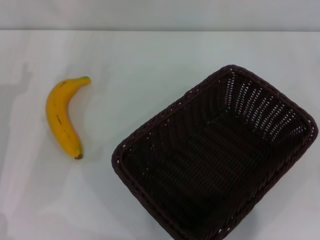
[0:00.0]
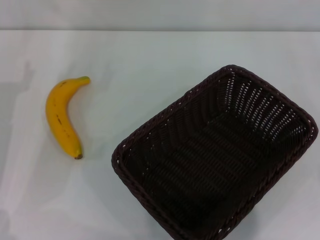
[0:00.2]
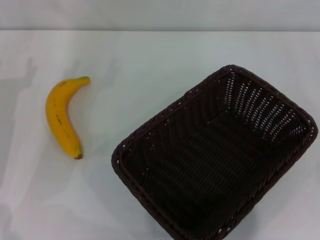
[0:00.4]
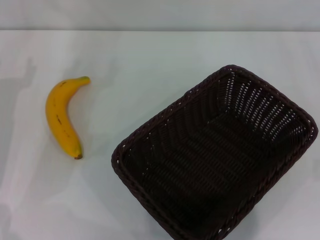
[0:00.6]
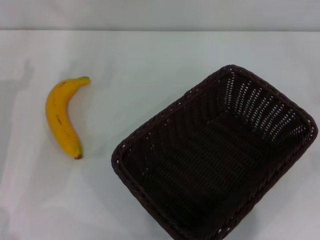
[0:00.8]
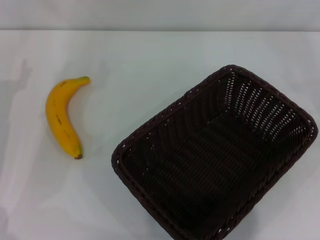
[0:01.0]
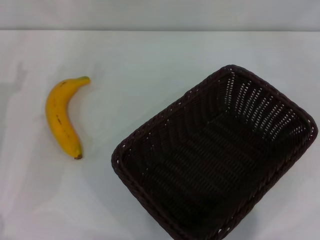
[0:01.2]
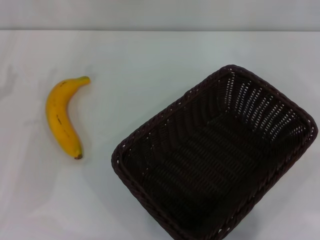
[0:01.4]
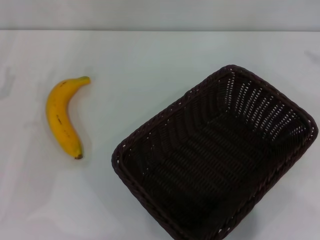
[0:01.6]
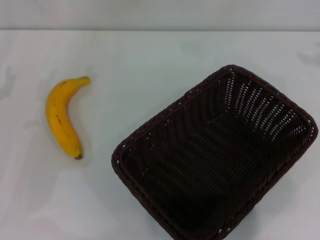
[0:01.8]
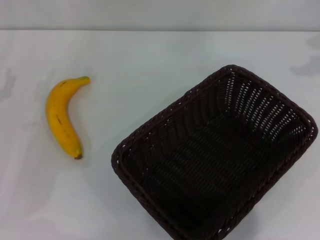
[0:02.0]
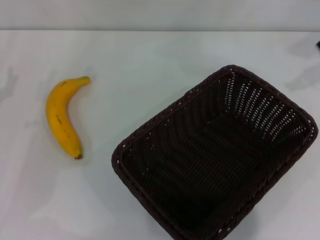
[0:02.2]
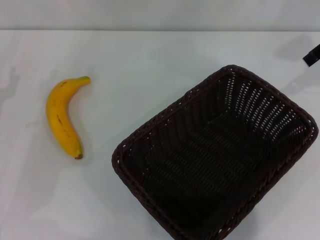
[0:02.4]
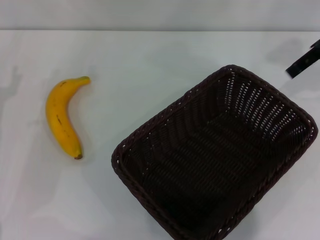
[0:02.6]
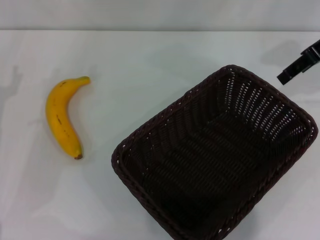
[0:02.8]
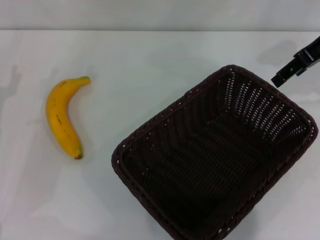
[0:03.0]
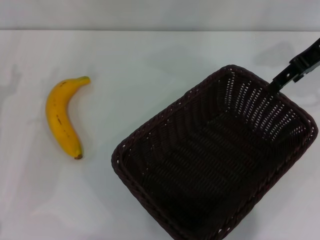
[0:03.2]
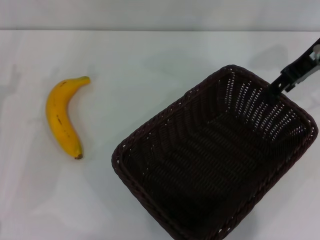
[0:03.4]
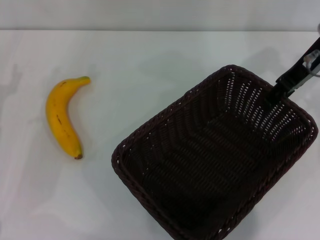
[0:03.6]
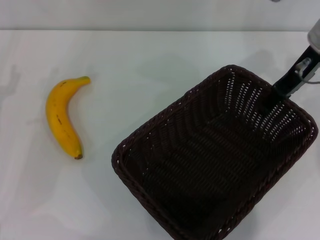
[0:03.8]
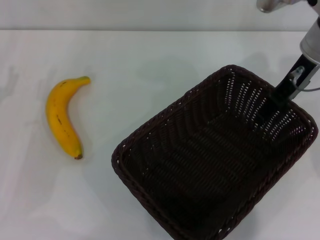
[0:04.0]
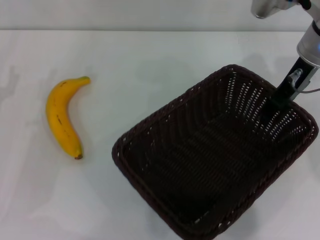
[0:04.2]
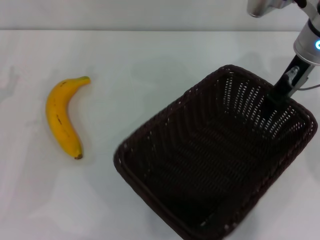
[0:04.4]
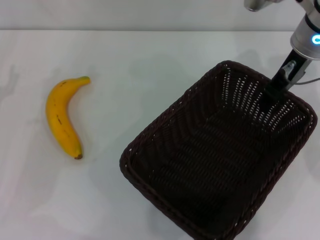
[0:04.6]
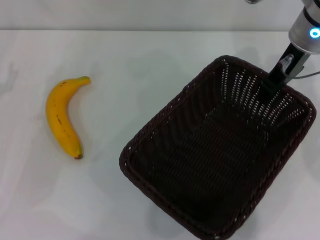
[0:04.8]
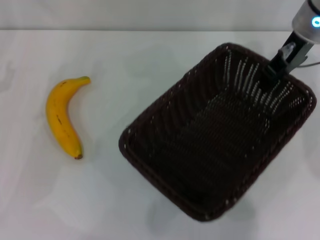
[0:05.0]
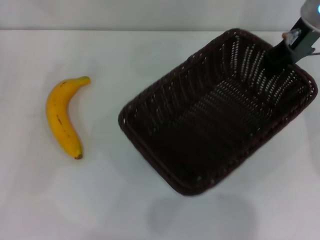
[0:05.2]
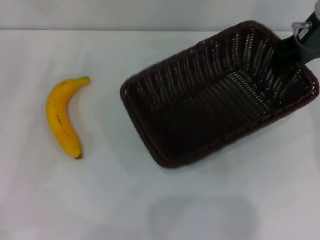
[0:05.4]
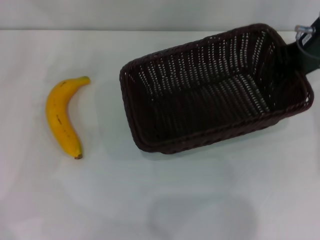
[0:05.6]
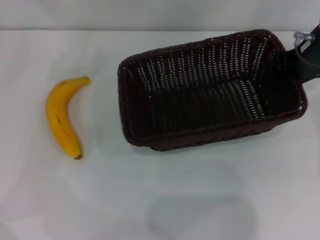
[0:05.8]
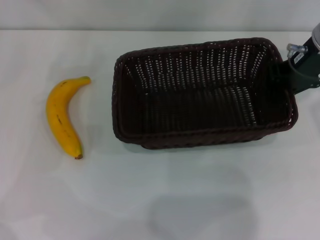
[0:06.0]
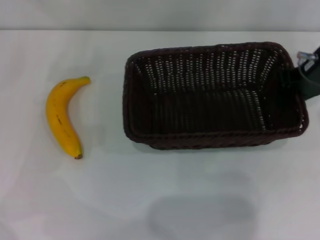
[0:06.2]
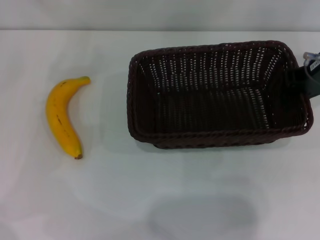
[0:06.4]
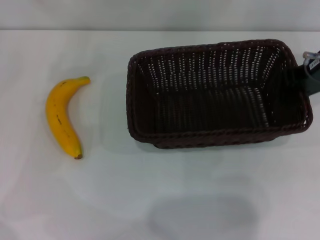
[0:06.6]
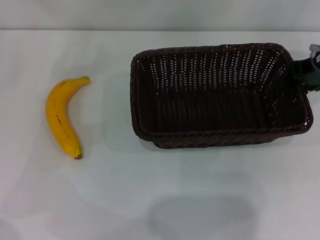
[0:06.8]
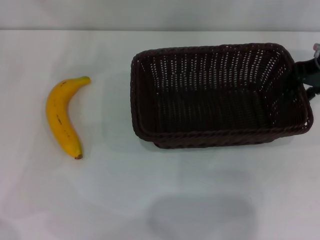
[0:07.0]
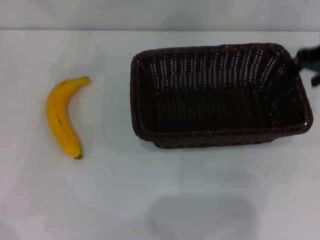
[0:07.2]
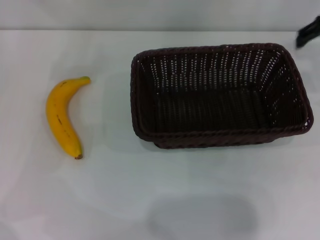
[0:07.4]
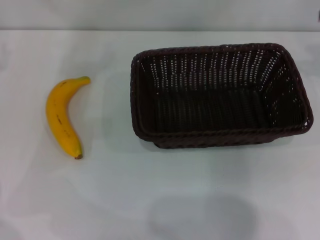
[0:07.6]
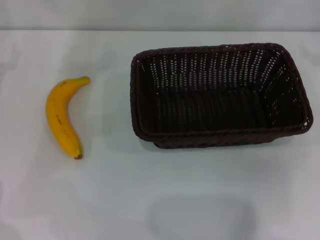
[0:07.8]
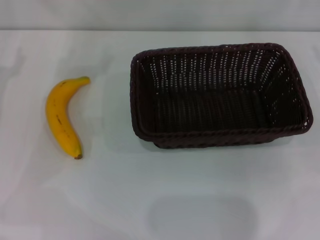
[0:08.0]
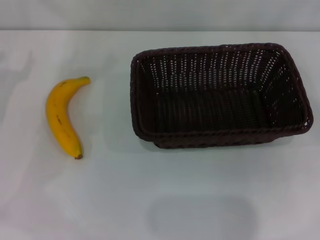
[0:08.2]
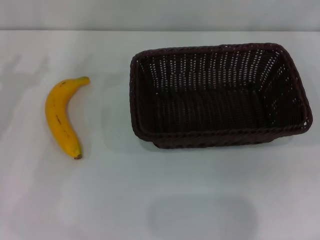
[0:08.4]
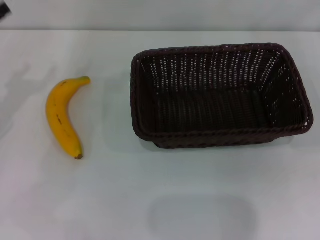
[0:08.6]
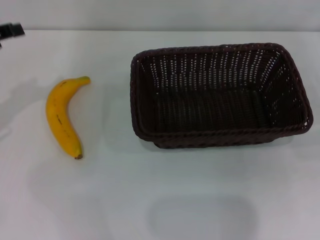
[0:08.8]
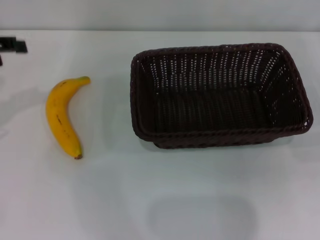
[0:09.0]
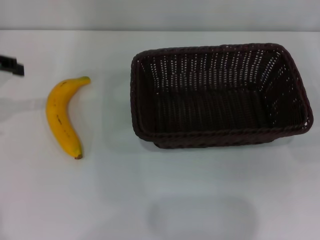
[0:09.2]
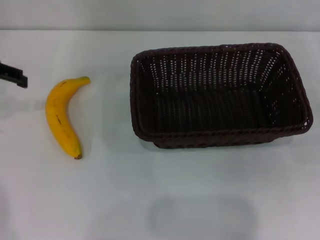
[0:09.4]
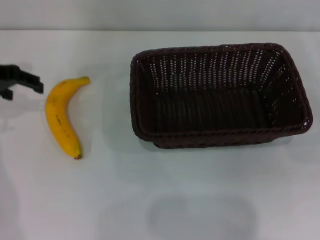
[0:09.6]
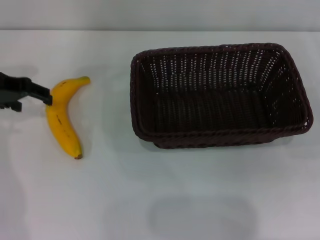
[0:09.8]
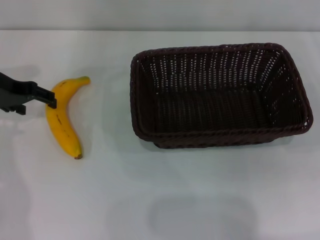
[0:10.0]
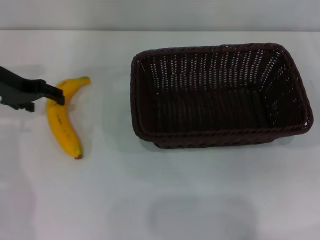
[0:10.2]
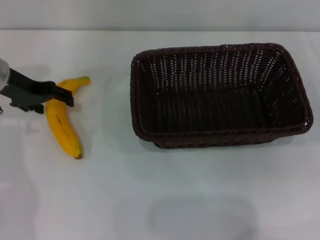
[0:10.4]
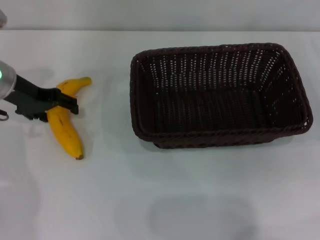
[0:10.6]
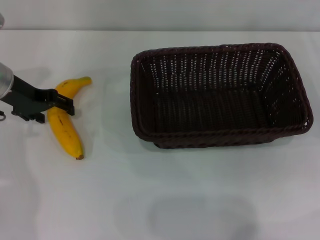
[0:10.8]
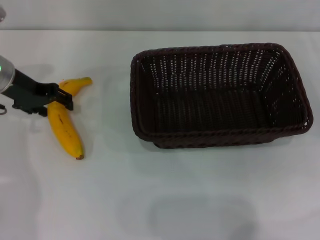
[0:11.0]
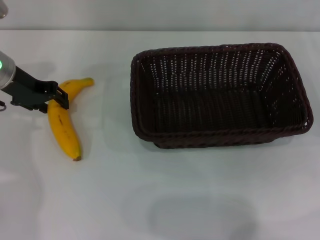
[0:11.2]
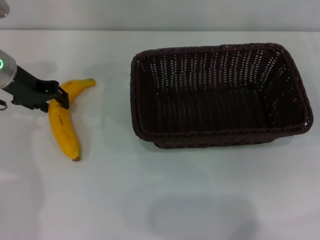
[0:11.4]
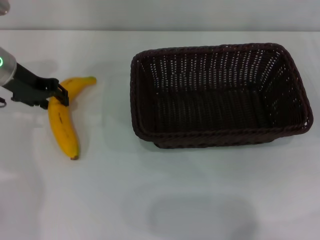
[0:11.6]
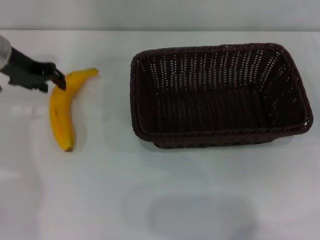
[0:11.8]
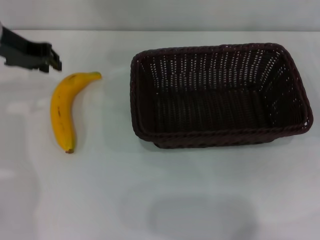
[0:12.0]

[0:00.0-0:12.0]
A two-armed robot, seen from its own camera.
Step, 0:00.0 to 0:05.0: Pick up the dark basket with the right gripper.
Step, 0:05.4 to 0:08.2: Place the dark basket in the center of view with the right gripper.
0:01.6 to 0:03.0: The right gripper goes some 15 cm to the left.
0:03.0 to 0:04.4: The right gripper shifts approximately 10 cm to the left and downward.
0:04.4 to 0:06.0: The right gripper closes. Meanwhile the left gripper is displaced upward by approximately 5 cm.
0:06.0 to 0:07.6: The right gripper heads to the right and upward, covering roughly 10 cm, and opens its fingers.
0:09.0 to 0:10.4: The left gripper goes some 10 cm downward, to the right and forward.
0:10.4 to 0:12.0: The left gripper shifts approximately 5 cm upward, and closes its fingers.

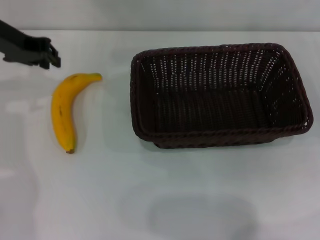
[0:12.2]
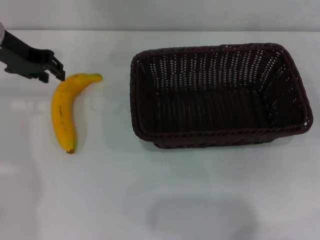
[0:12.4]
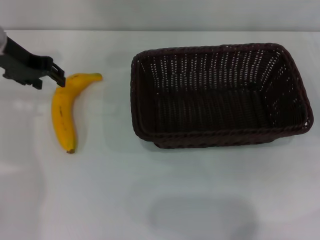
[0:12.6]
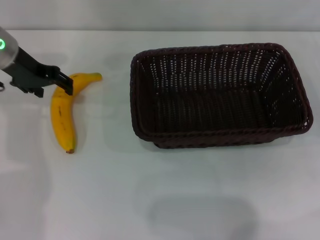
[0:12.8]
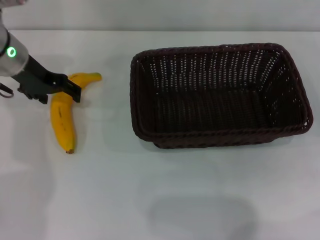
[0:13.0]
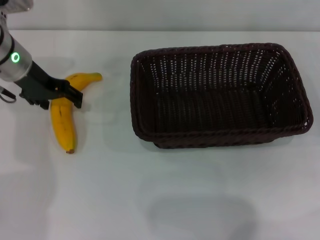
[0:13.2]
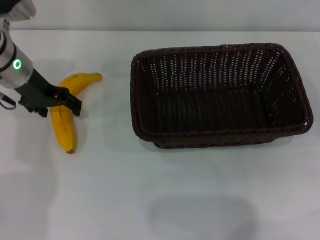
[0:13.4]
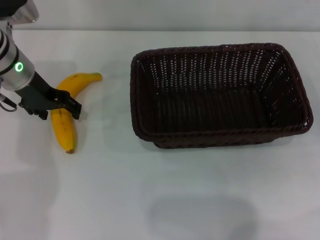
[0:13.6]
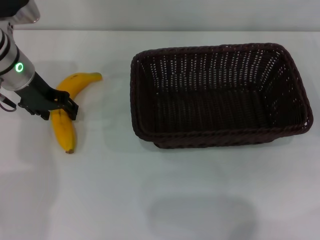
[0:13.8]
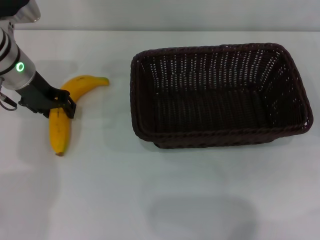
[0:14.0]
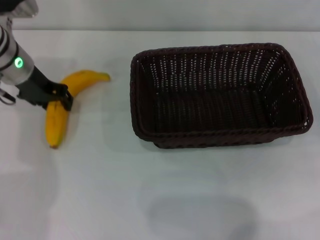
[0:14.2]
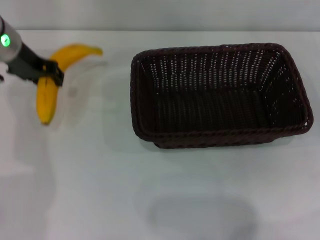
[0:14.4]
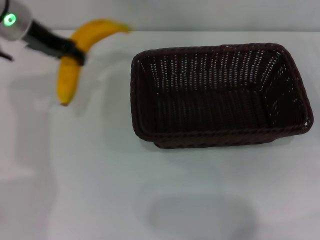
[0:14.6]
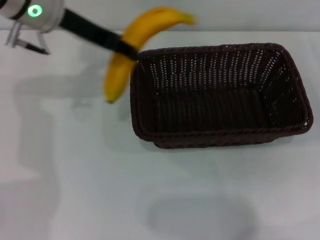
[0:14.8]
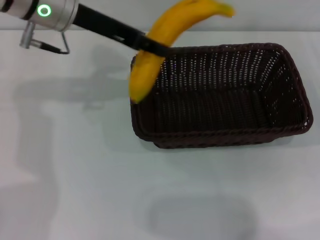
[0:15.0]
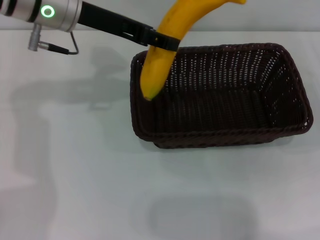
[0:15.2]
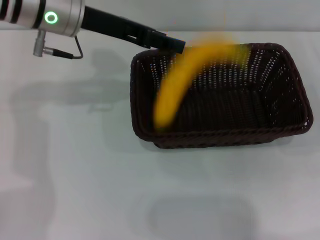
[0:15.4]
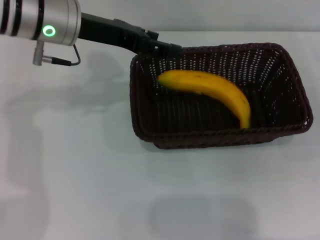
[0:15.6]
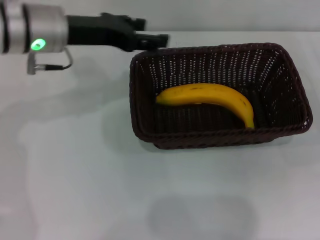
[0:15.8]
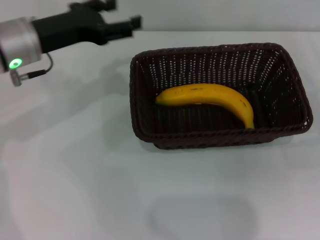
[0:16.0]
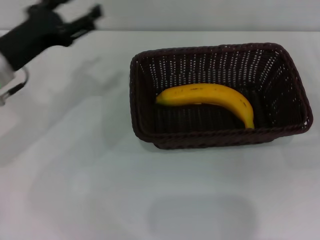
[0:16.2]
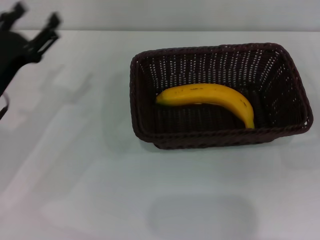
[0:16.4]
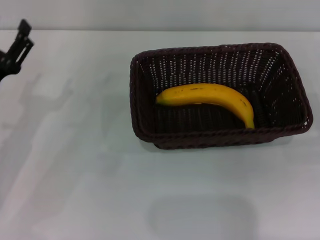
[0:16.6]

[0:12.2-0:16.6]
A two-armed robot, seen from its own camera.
Step, 0:12.2 to 0:14.4: Pick up the banana with the left gripper.
Step, 0:14.6 to 0:15.6: Place the banana into the dark basket with the left gripper.
0:12.2 to 0:13.6: The left gripper goes some 5 cm downward, and opens its fingers.
0:13.6 to 0:15.2: The left gripper moves upward and to the right, some 10 cm, and closes up.
0:15.2 to 0:16.6: The left gripper heads downward, to the left and backward, covering approximately 25 cm, and opens.

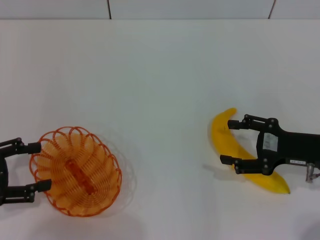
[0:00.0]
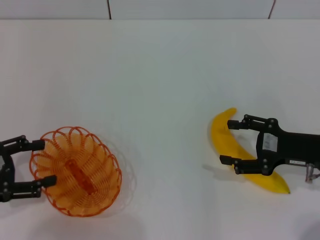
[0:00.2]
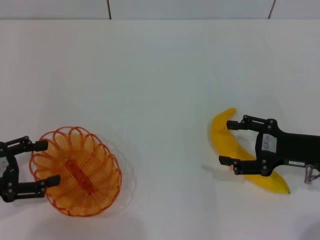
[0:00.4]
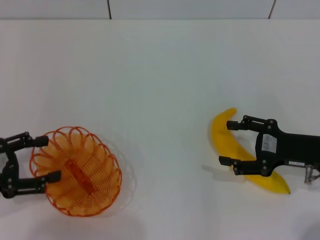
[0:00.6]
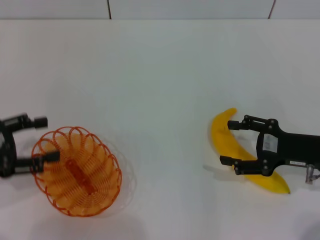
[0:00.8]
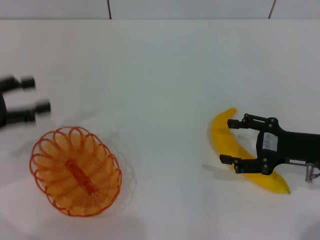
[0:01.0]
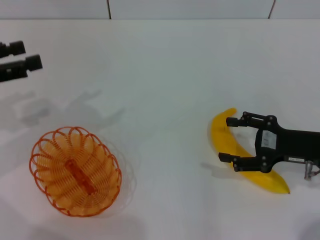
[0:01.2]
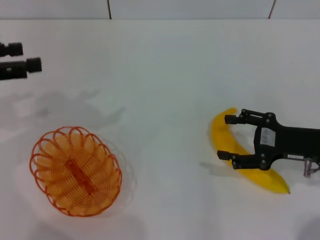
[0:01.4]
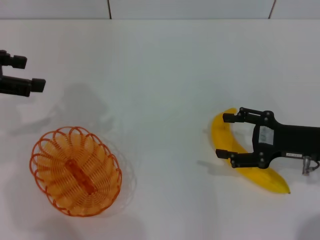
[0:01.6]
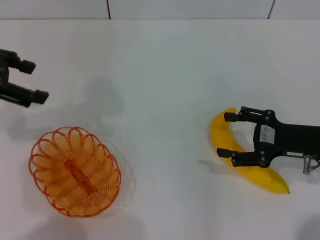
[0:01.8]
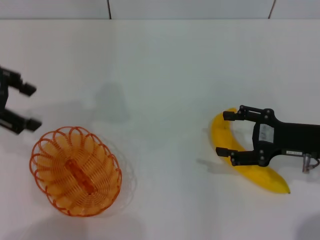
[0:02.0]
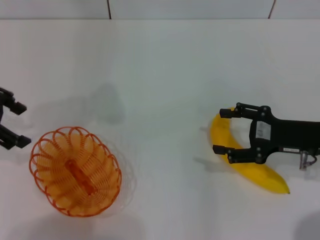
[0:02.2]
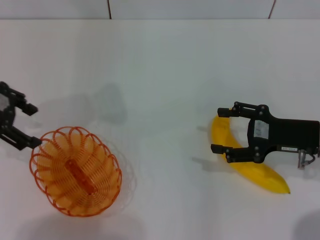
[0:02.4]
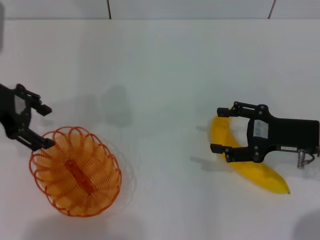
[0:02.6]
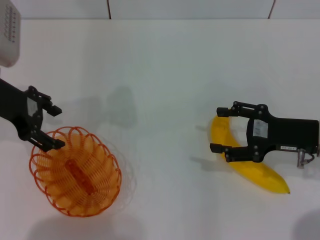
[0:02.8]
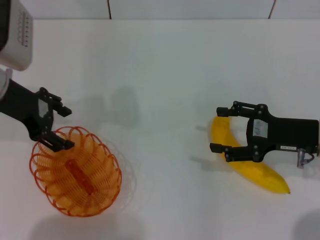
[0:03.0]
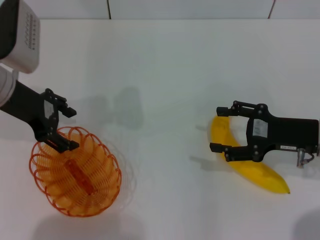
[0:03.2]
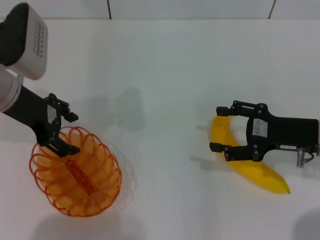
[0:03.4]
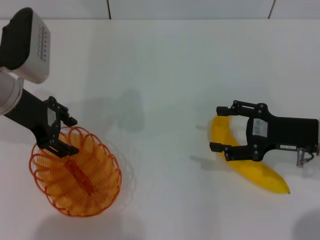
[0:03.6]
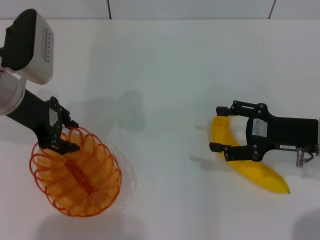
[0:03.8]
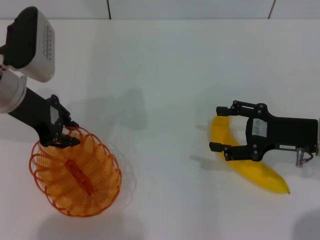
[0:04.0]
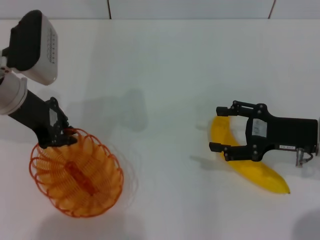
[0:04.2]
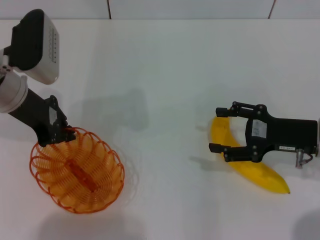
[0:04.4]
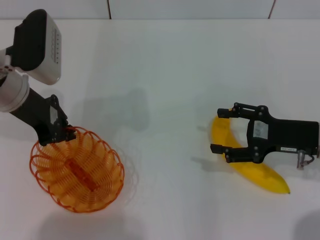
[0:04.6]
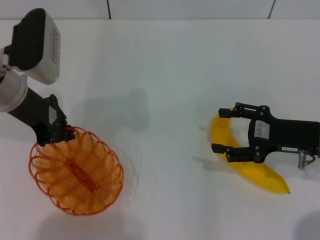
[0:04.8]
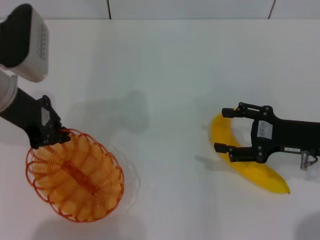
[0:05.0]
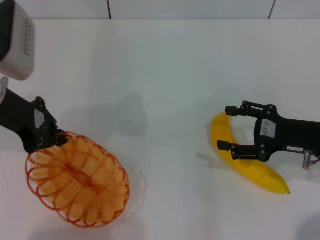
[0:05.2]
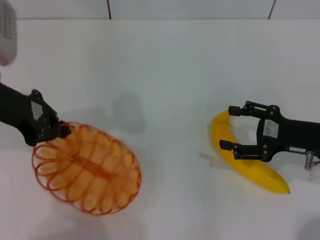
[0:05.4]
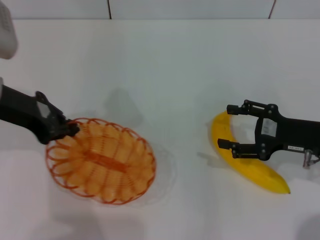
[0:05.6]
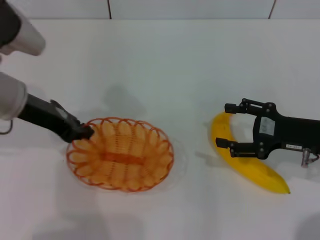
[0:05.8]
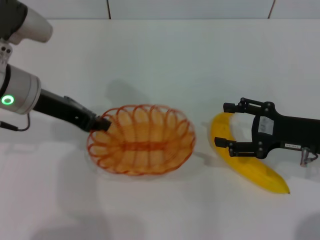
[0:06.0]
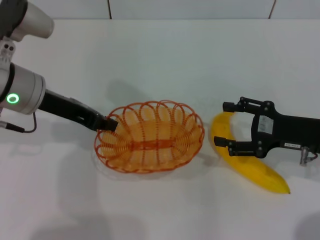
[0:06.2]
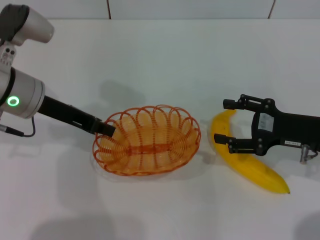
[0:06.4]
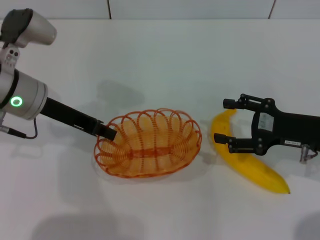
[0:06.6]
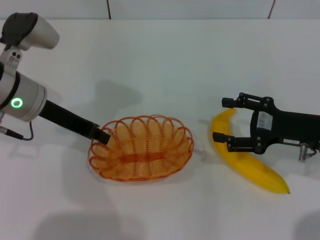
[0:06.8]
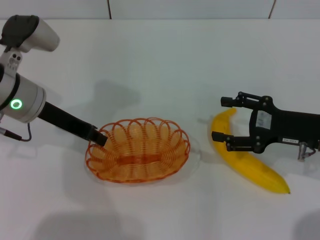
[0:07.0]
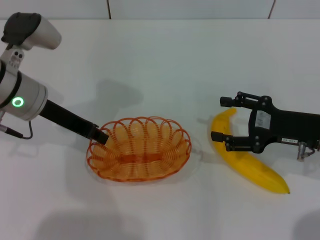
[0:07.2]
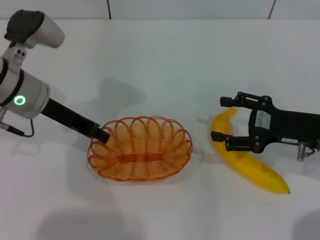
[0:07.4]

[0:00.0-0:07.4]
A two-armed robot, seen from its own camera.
Step, 0:00.0 to 0:05.4: Pick up the basket with the left gripper.
0:00.0 to 0:01.4: The left gripper goes approximately 15 cm upward and forward.
0:01.4 to 0:03.0: The left gripper goes roughly 10 cm to the right and forward.
0:03.0 to 0:04.4: The left gripper closes.
0:06.0 to 0:07.4: The grippers stay close to where they were, moving slightly.
